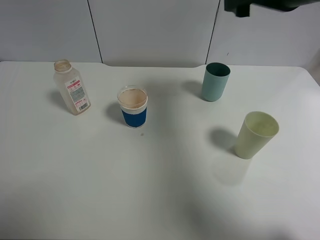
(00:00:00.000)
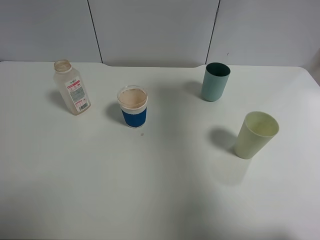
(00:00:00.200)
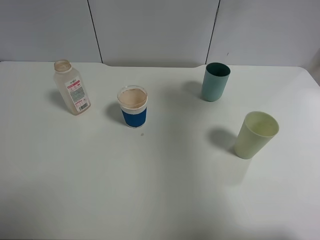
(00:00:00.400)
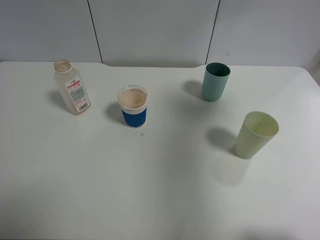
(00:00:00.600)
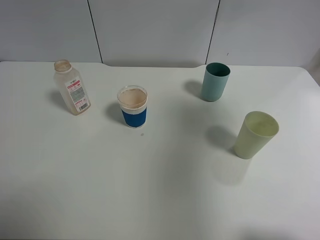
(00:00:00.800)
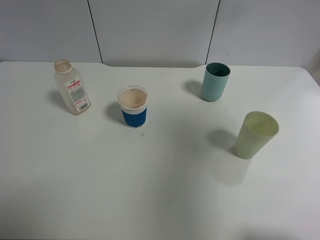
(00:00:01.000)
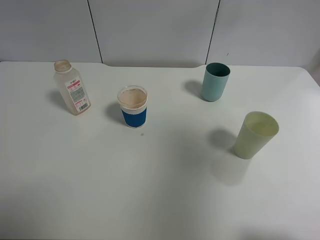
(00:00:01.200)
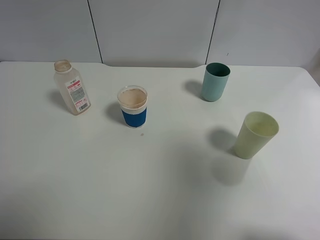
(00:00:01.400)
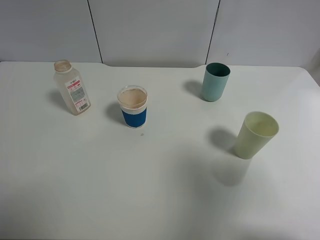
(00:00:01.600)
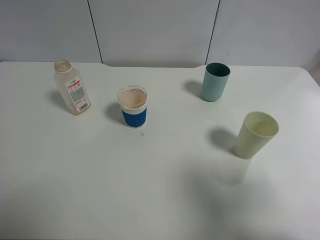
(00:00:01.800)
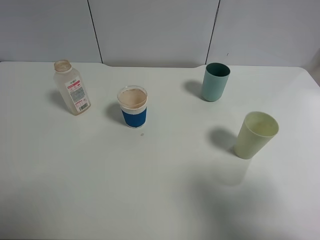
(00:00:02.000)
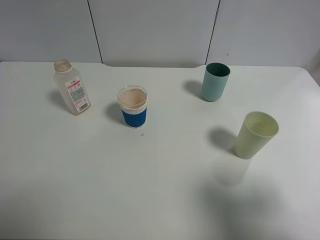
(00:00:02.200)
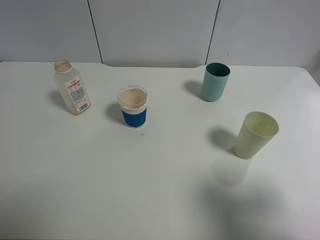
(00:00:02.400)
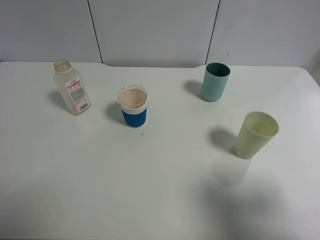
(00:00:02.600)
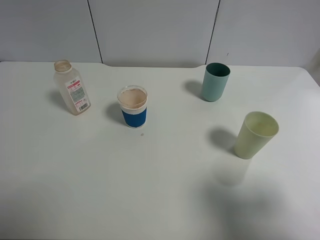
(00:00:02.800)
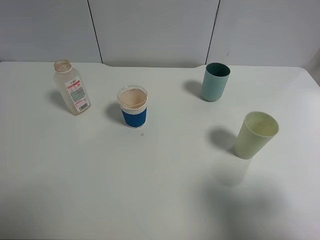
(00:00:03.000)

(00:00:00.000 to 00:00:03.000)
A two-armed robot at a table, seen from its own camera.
Task of the whole recording: use a clamp to hold the bottle of the drink, pour the beverage into a random cup, then clamp the cup containing the drink and pour the drink into another random cup.
00:00:00.000 - 00:00:01.600: The right gripper shifts some 30 cm backward.
00:00:01.600 - 00:00:03.000: The right gripper moves downward, some 10 cm.
